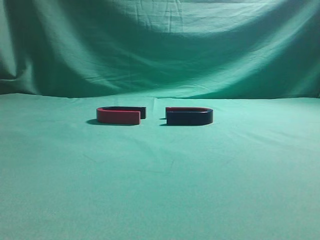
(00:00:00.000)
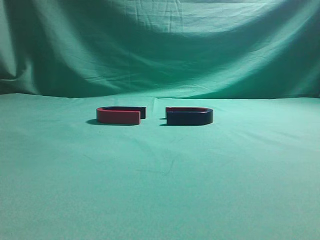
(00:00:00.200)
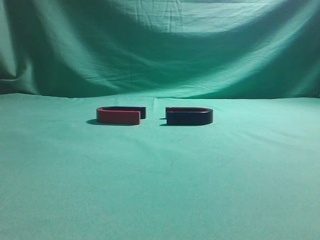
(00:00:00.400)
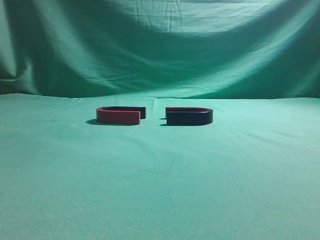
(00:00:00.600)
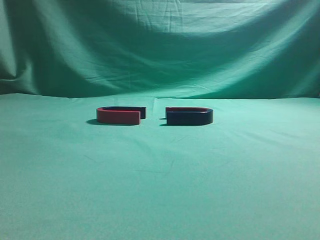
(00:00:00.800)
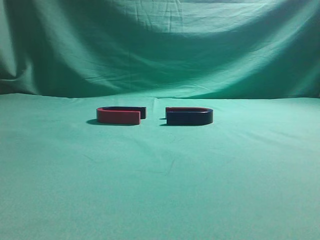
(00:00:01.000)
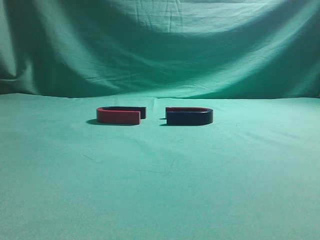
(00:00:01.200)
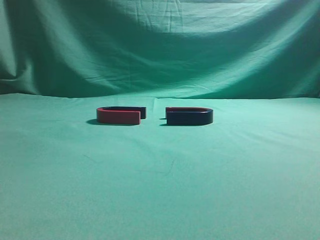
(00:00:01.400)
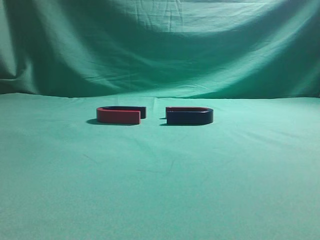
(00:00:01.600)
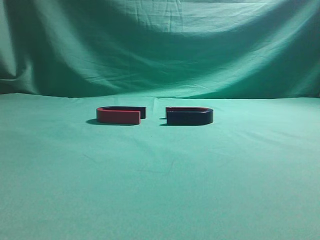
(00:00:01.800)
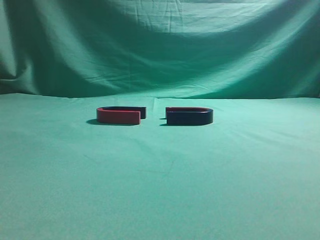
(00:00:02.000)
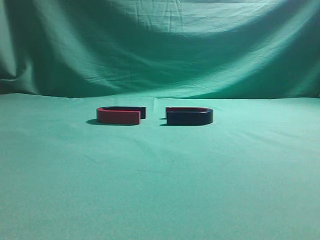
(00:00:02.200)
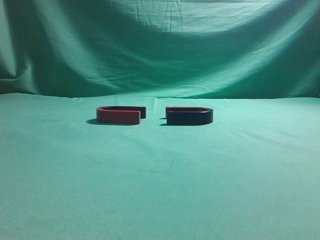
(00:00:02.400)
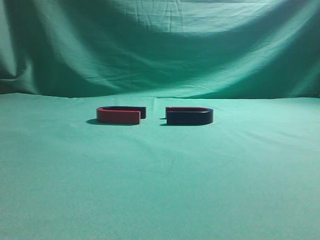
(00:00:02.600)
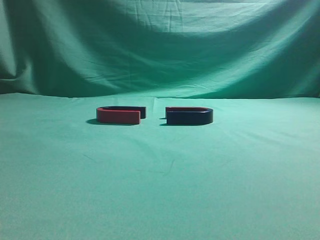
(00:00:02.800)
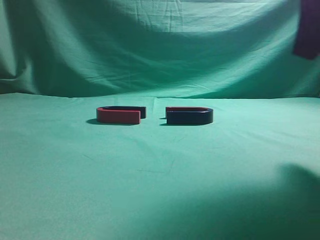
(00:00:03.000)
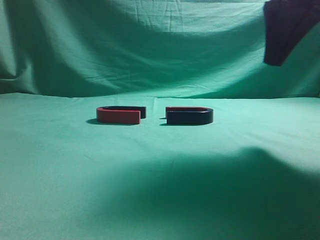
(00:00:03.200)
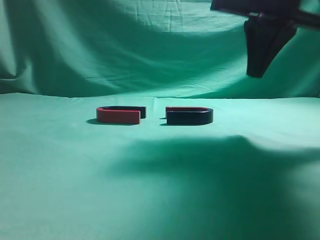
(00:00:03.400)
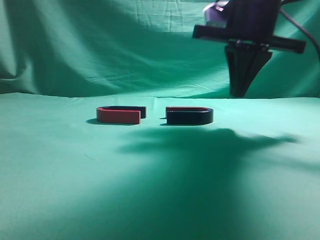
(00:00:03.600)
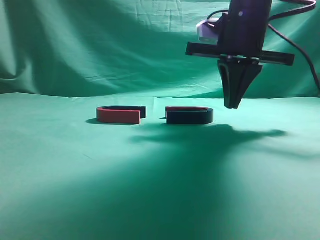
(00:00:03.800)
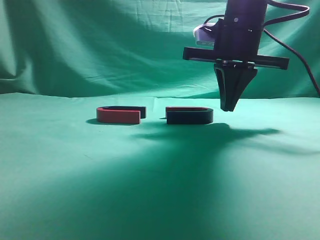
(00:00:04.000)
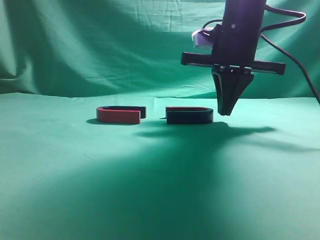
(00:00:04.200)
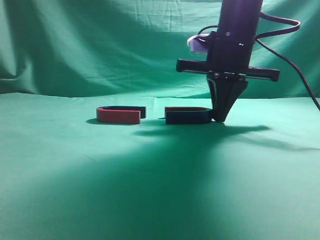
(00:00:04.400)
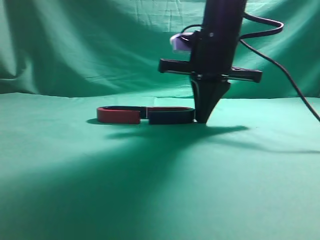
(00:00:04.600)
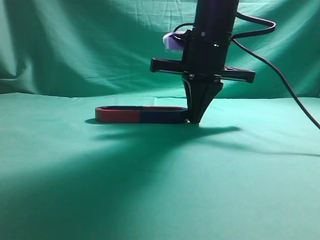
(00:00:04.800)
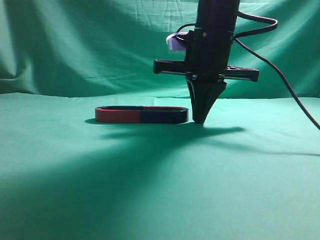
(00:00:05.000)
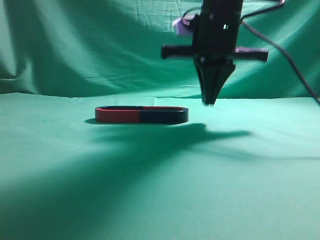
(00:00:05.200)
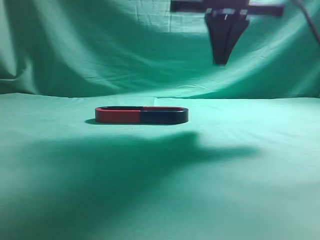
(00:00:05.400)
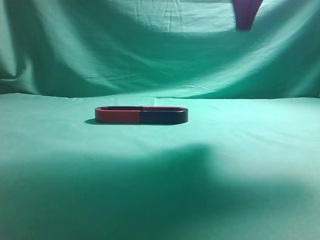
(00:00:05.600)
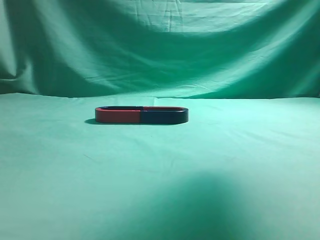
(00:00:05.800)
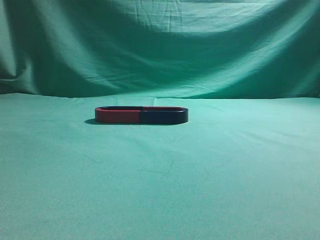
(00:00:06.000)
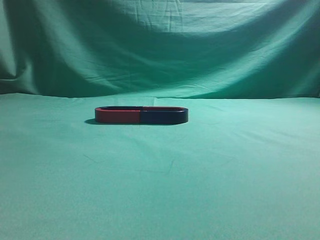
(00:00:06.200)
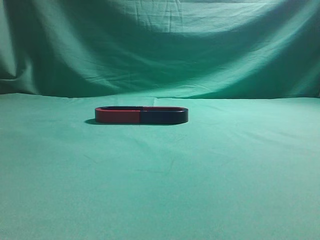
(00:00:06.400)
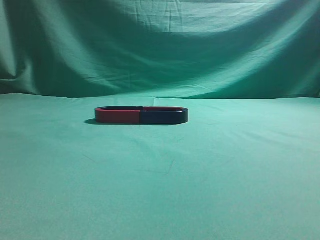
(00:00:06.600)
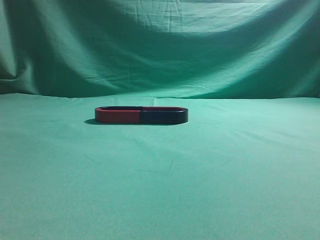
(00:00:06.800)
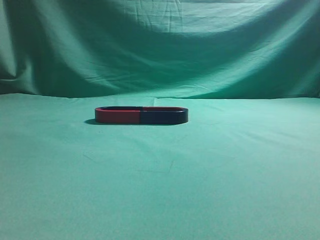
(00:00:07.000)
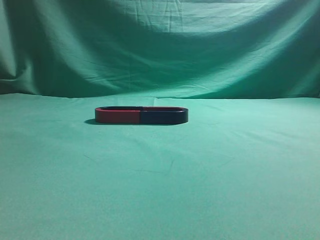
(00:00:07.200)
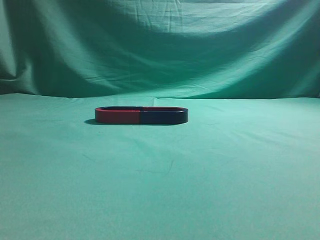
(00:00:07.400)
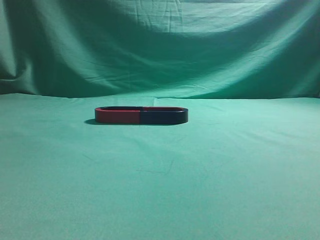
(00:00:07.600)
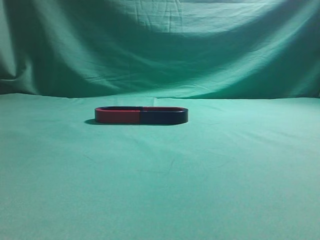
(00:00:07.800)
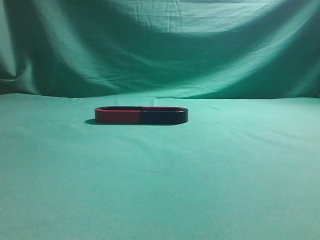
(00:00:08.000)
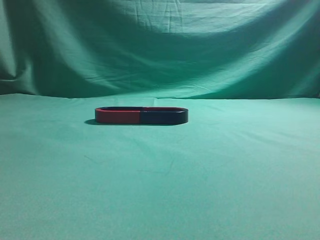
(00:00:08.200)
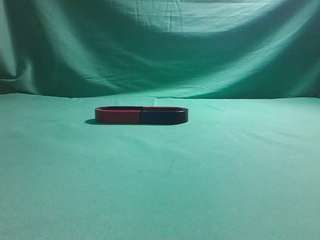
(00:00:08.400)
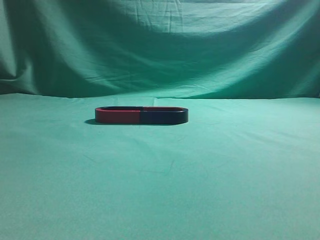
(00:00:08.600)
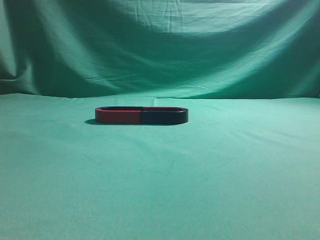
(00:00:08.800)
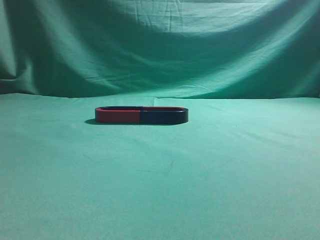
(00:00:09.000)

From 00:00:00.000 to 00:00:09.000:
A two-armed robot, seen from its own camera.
Task of the whole recording: push the magnet on the table from its original position to another position.
Step, from 00:00:00.000 to 00:00:05.000: Push the magnet on the right to connect the magnet on the left.
From 00:00:01.600 to 00:00:03.000: The right gripper moves forward and to the left, roughly 20 cm.
From 00:00:03.000 to 00:00:04.400: The right gripper goes some 20 cm forward, to the left and downward.
From 00:00:04.400 to 00:00:06.000: The right gripper travels upward and backward by some 25 cm.
